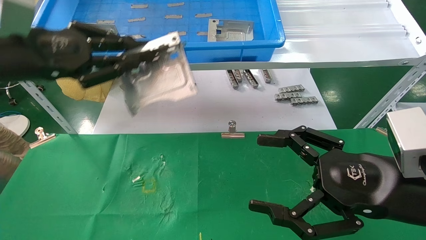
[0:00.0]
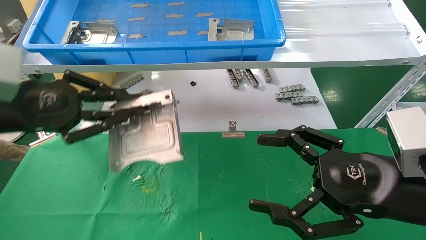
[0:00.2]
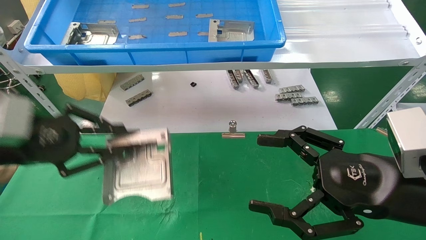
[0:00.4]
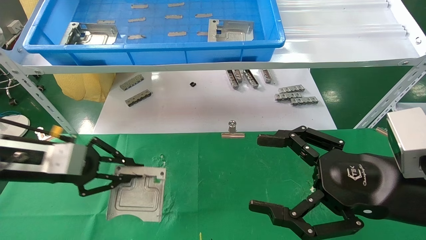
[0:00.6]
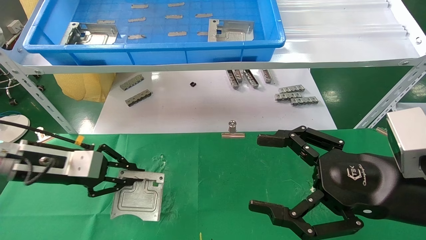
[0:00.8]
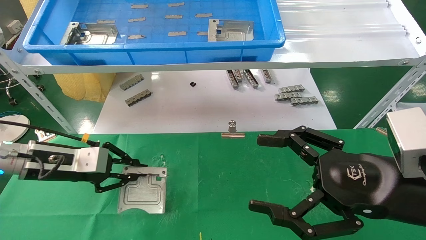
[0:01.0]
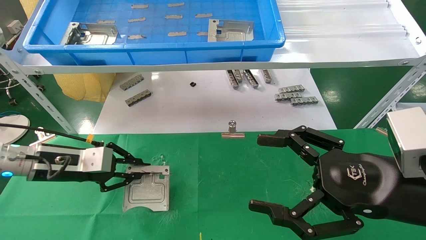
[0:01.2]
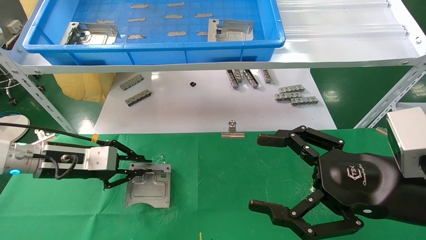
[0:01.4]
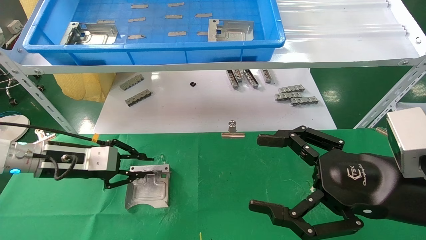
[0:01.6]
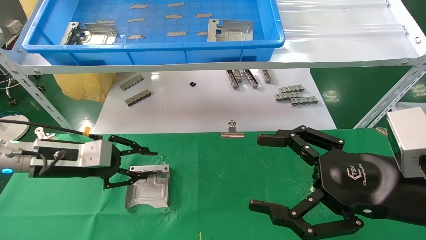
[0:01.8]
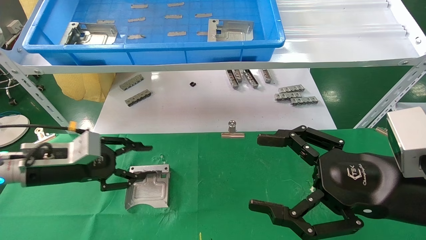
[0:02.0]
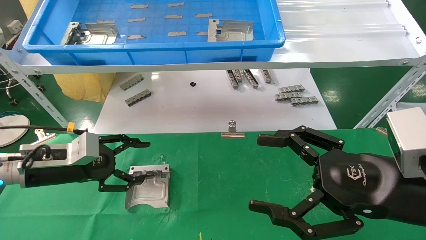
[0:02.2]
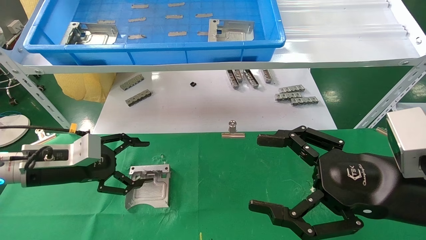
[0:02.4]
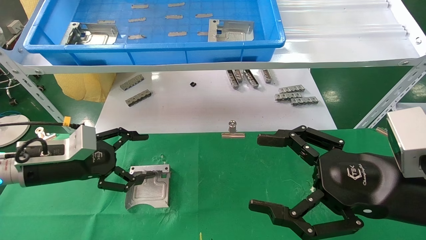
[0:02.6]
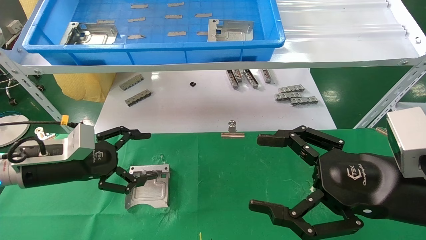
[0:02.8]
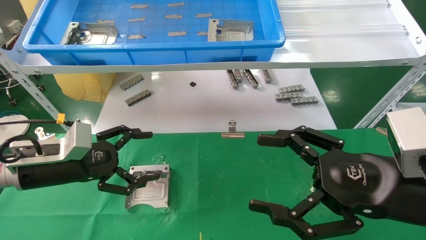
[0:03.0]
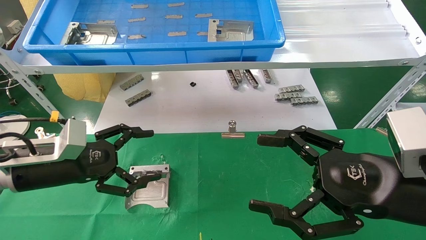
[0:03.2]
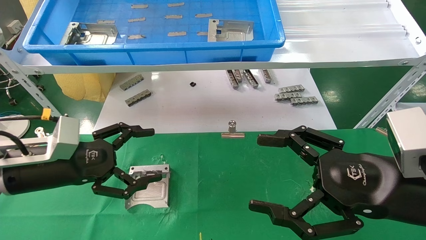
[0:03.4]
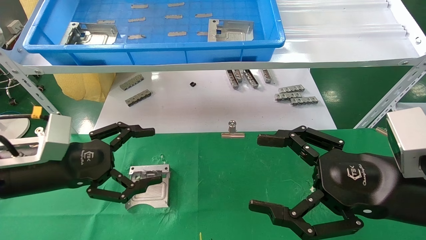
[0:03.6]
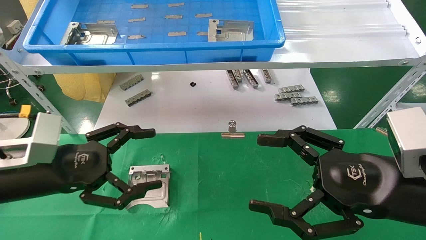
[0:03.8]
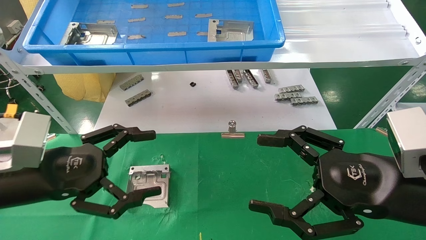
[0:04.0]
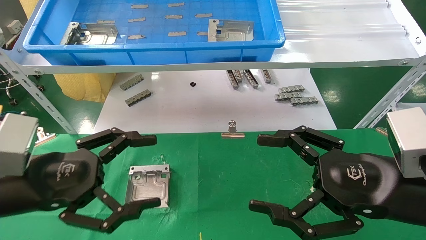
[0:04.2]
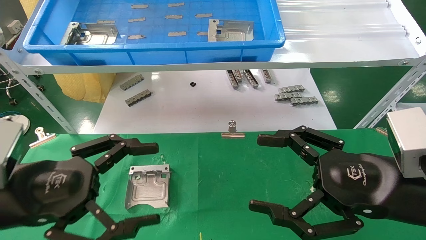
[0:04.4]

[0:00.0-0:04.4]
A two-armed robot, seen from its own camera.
Task of the whole recording: use the mechanical arm to pick up the parts and place them on the table.
Step, 0:00.0 to 0:01.8: Place the hard drive bracket into the box.
0:00.0 to 0:01.4: The left gripper heads downward and forward, covering about 20 cm.
0:01.4 to 0:03.0: The left gripper opens.
0:03.0 to 0:04.4: The left gripper is displaced backward by roughly 10 cm.

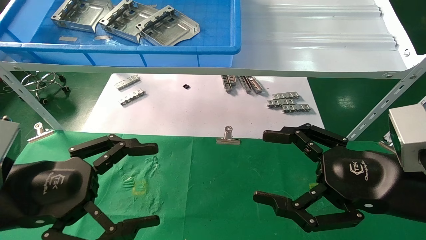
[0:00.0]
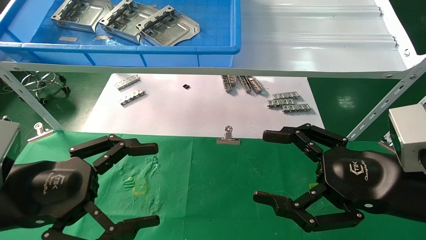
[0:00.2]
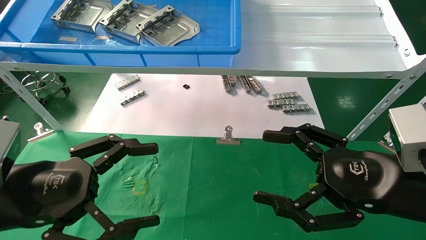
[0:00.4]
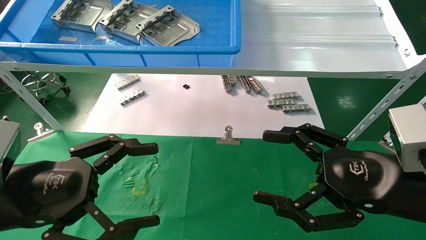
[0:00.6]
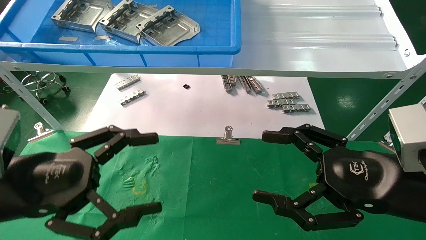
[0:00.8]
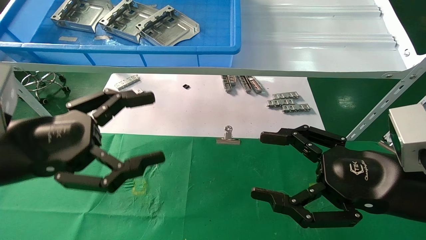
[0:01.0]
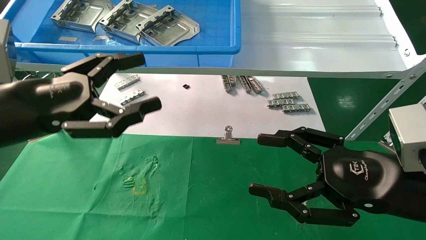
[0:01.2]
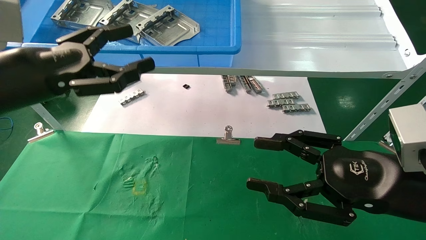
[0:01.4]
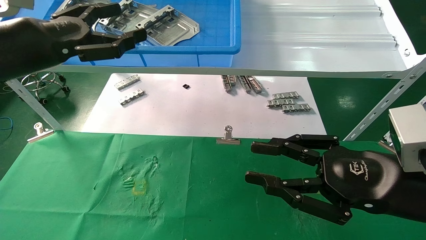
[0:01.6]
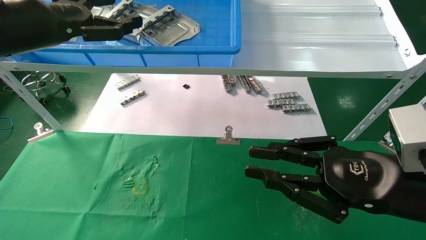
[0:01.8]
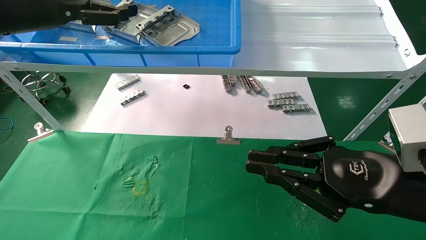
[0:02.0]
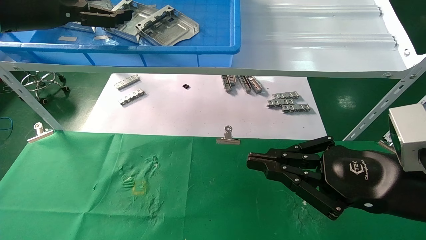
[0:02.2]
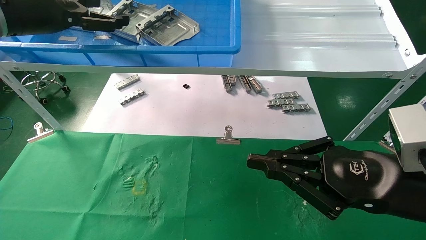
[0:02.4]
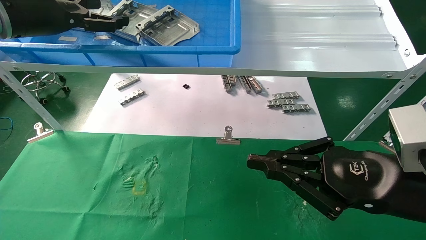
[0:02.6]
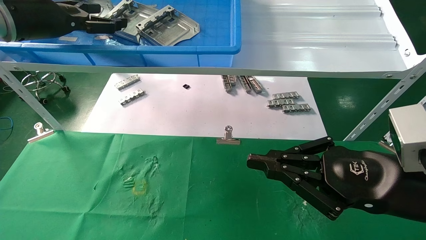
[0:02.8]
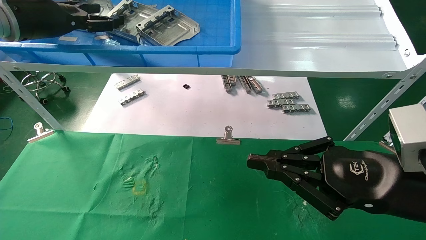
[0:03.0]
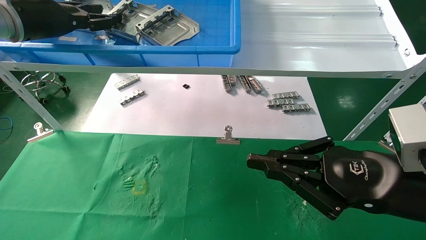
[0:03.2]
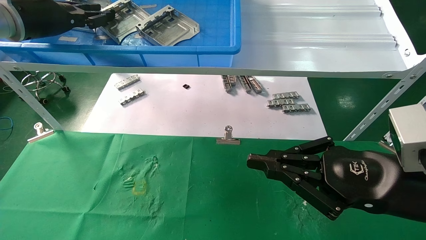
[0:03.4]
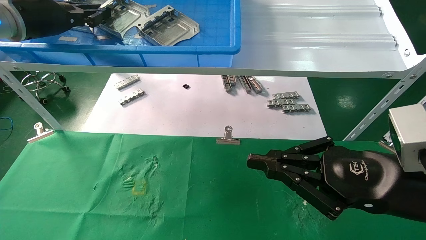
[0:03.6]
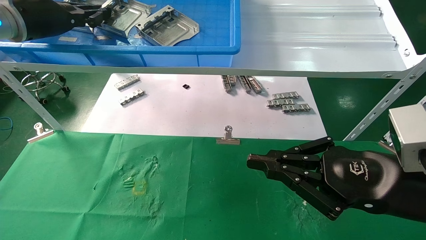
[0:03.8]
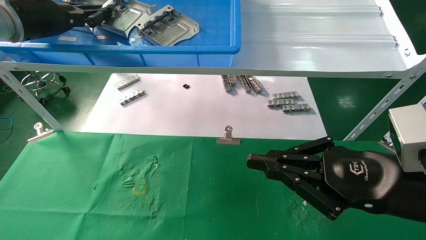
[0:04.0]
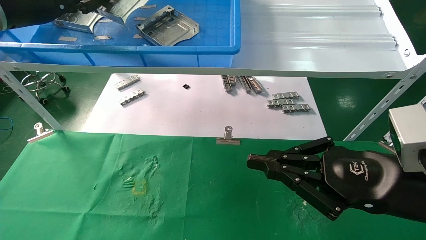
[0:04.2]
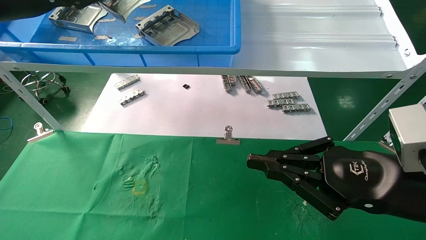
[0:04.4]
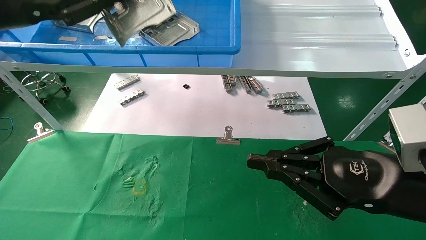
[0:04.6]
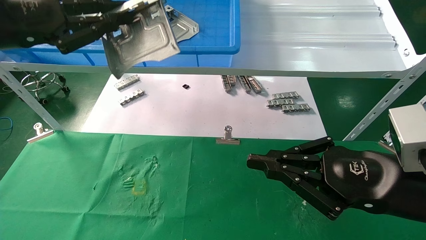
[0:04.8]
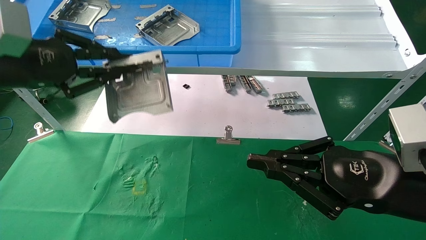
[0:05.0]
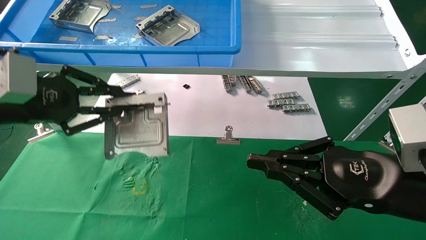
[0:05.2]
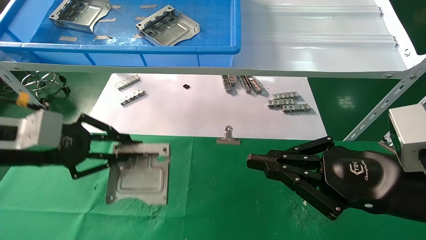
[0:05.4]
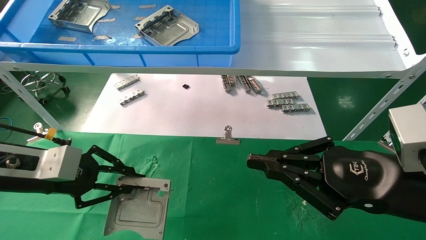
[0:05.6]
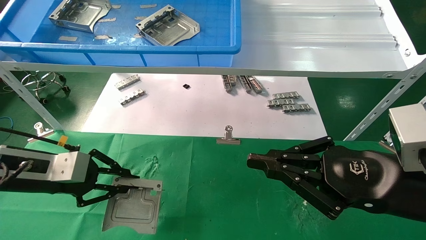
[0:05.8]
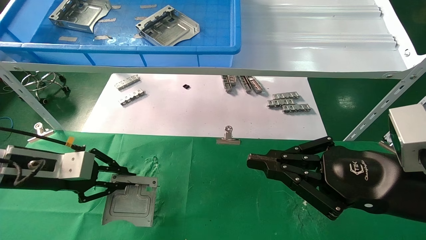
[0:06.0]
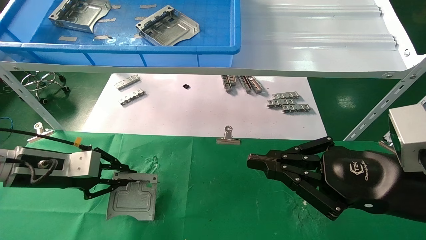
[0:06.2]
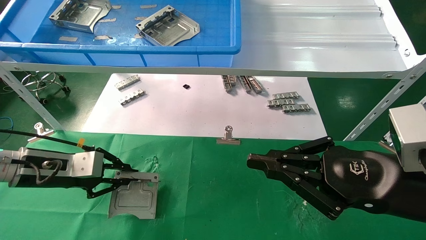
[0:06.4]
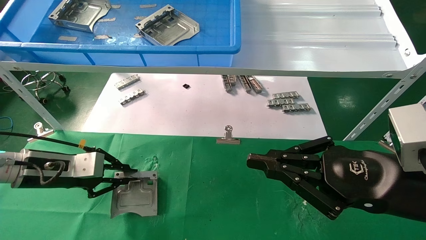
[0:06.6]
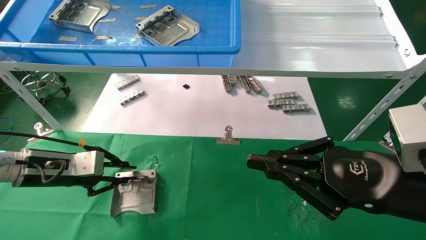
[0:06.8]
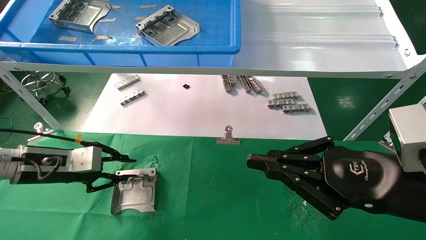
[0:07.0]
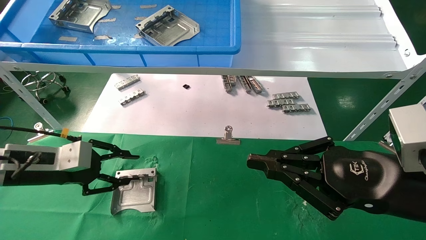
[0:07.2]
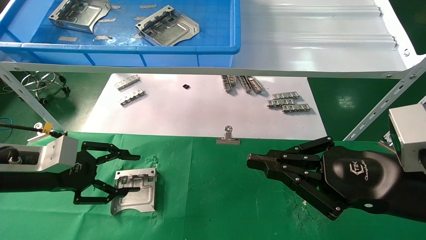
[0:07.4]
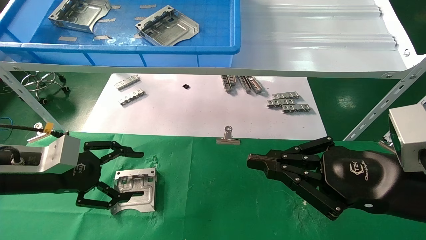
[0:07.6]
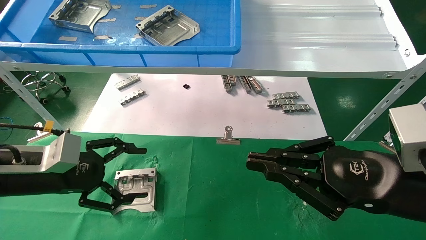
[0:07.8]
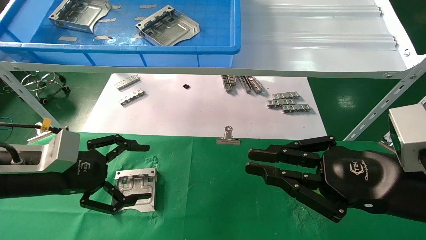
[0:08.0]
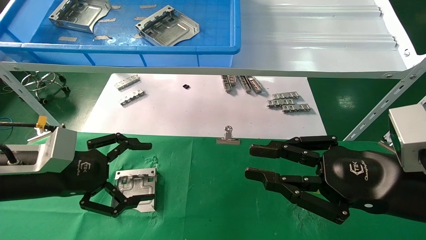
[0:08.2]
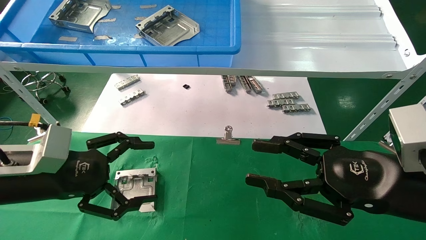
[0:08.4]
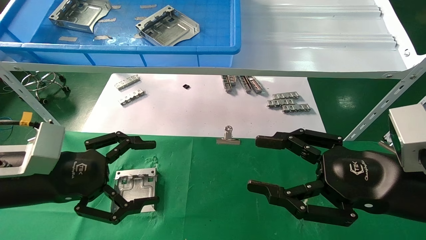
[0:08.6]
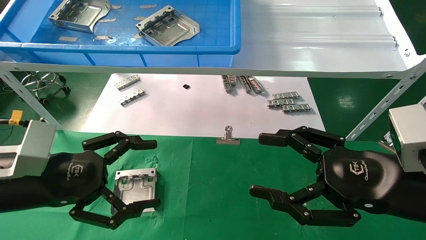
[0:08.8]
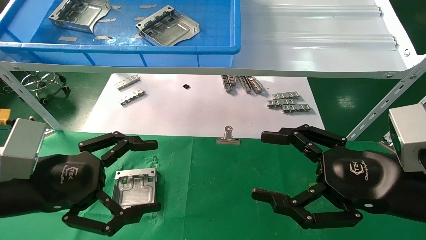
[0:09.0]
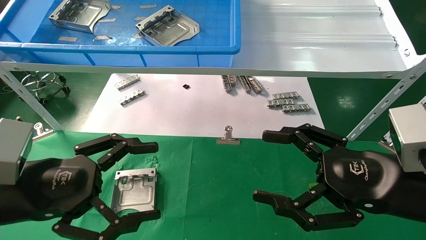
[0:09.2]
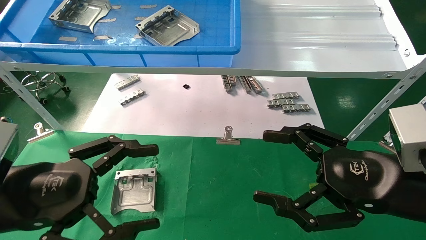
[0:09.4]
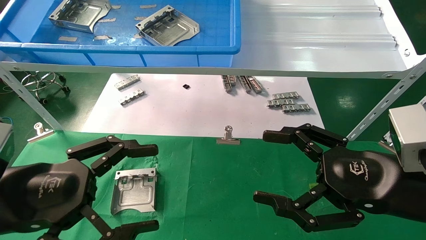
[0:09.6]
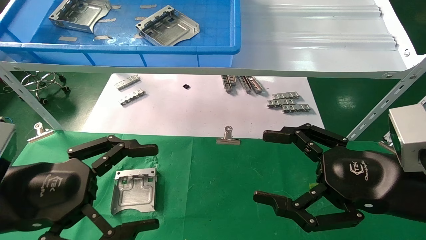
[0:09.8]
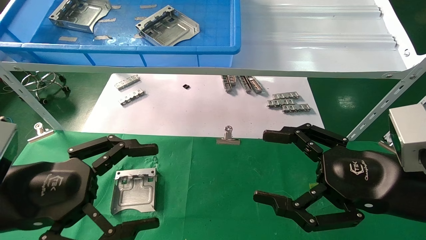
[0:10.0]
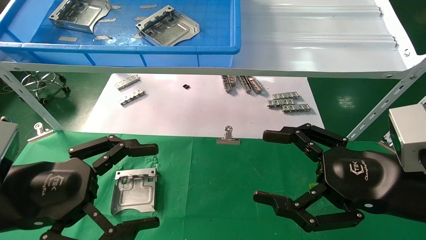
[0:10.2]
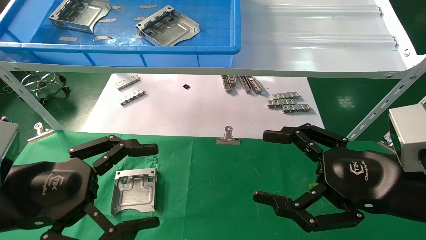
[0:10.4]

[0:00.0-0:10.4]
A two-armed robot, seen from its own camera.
Task of the whole recording: use the mechanical arm to pick up the parts and place them on the table.
Step, 0:01.0 to 0:03.8: Pick up the hard drive bracket from the feeding area.
Step, 0:04.0 to 0:06.8: Place the hard drive bracket into the box.
0:00.0 to 0:01.4: The left gripper is displaced upward and forward by about 15 cm.
0:01.4 to 0:03.0: The left gripper goes about 15 cm forward and upward. The right gripper closes its fingers.
0:03.0 to 0:04.4: The left gripper moves backward, about 5 cm, and closes up.
0:04.4 to 0:06.0: The left gripper moves downward, some 25 cm.
0:06.0 to 0:07.4: The left gripper opens.
0:07.4 to 0:09.0: The right gripper opens its fingers, while the left gripper shifts some 10 cm backward and to the right, and opens up.
0:09.0 to 0:10.4: The grippers make only small movements.

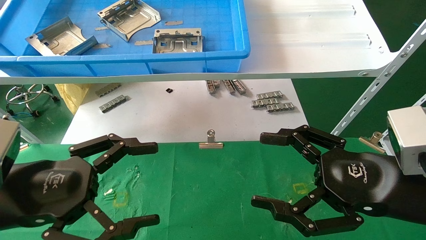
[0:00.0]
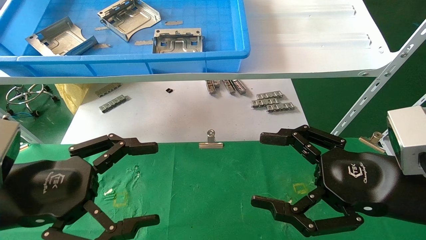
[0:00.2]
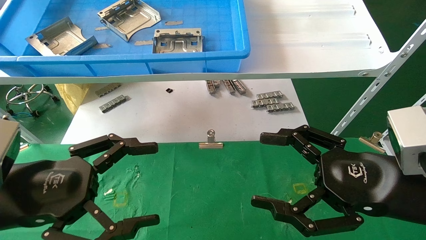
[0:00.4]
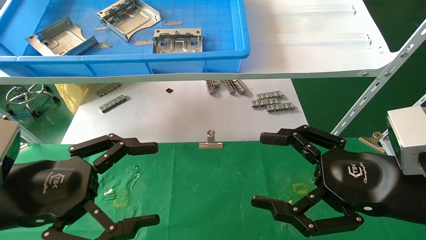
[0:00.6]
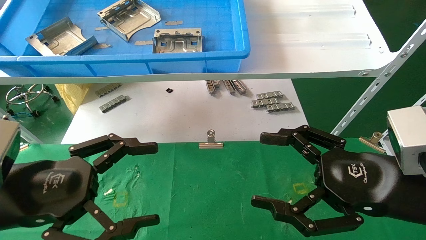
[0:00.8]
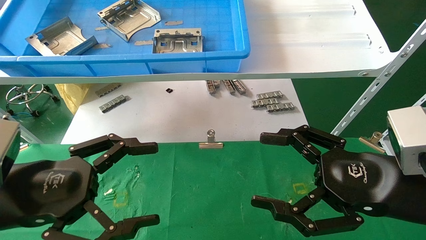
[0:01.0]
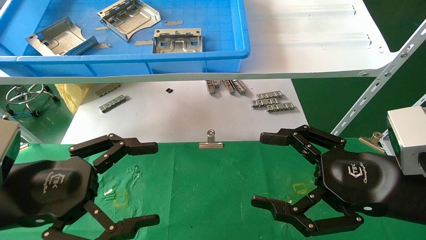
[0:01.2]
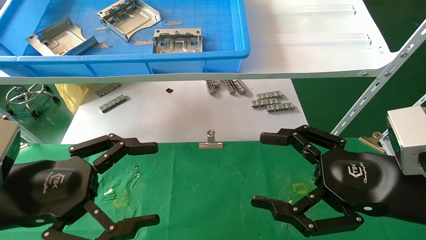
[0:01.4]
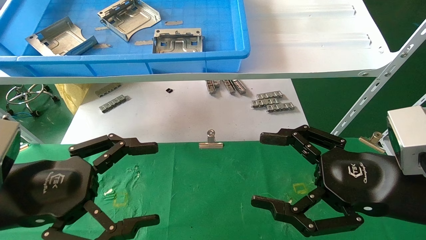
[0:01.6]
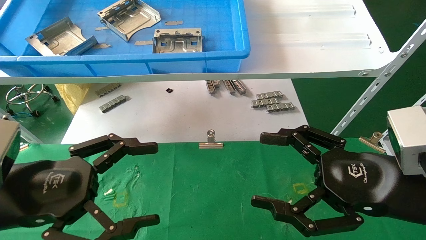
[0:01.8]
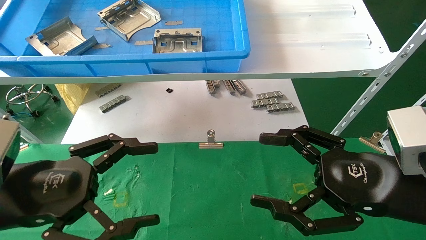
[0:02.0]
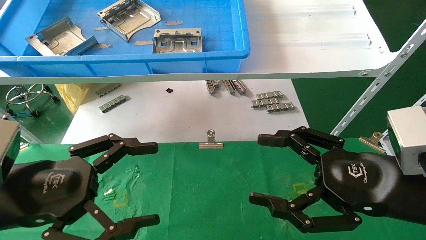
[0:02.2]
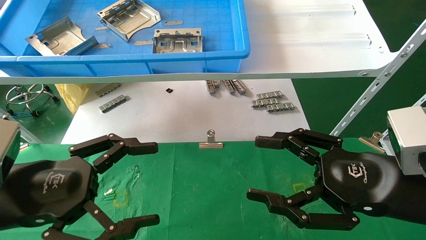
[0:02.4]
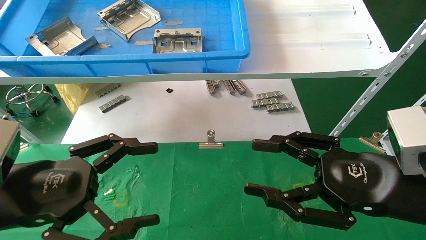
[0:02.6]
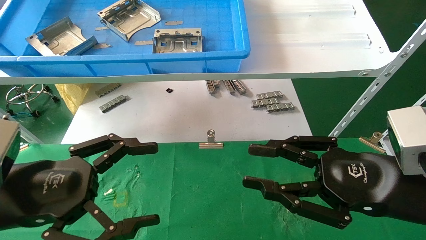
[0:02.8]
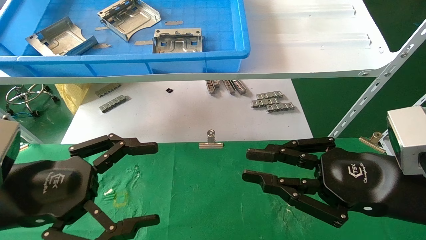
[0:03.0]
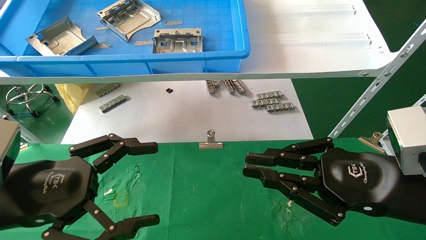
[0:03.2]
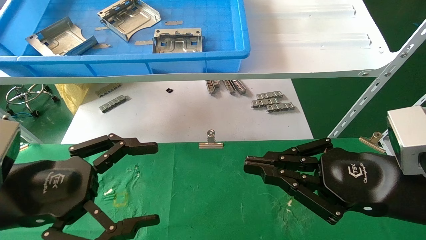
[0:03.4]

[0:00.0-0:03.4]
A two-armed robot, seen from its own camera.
Task of the whole recording: use the mechanical arm to pick up the parts and place them on the table.
0:00.0 to 0:01.6: The two grippers keep their place.
0:01.6 to 0:03.4: The right gripper closes its fingers.
